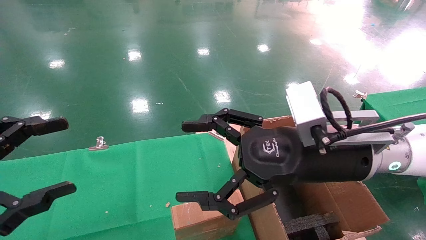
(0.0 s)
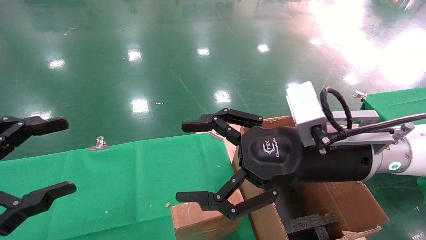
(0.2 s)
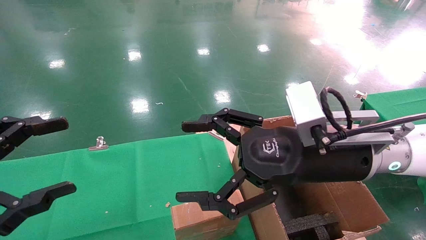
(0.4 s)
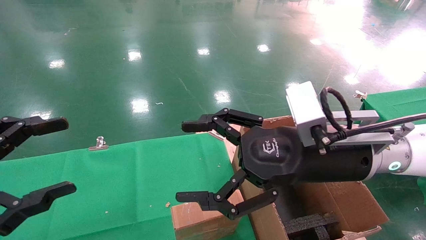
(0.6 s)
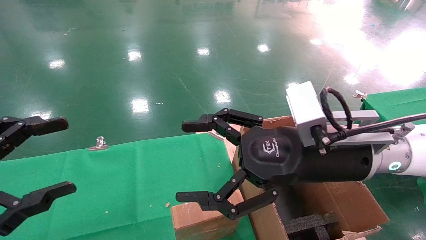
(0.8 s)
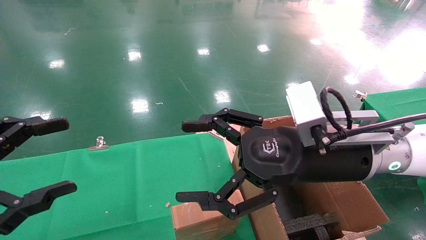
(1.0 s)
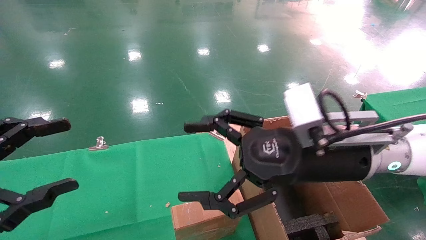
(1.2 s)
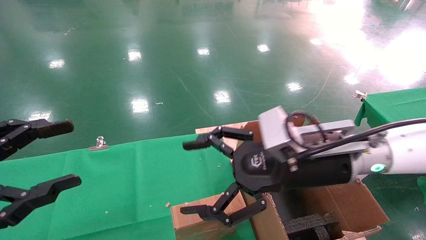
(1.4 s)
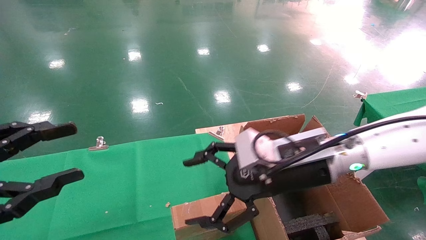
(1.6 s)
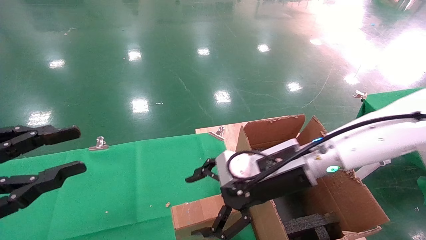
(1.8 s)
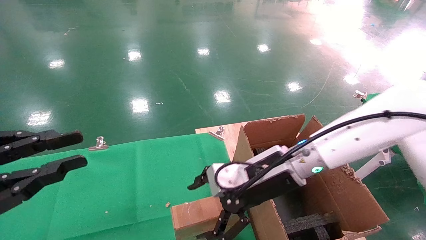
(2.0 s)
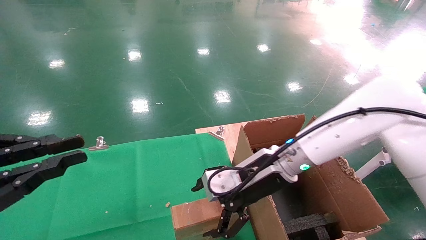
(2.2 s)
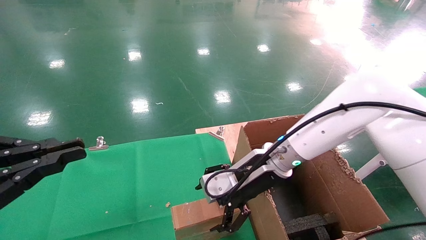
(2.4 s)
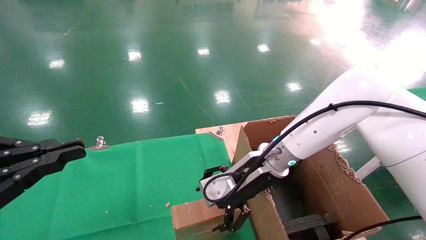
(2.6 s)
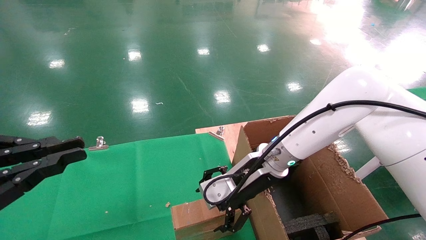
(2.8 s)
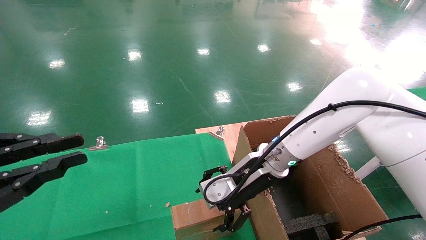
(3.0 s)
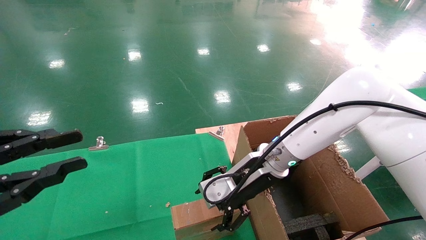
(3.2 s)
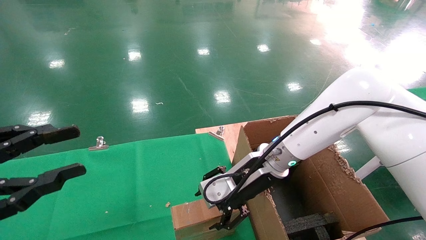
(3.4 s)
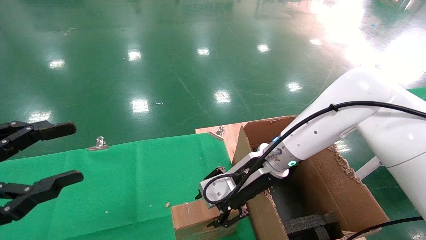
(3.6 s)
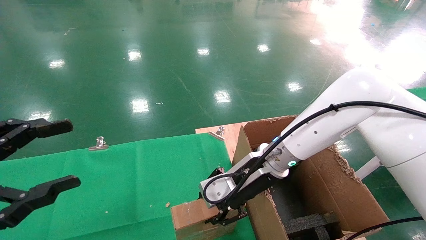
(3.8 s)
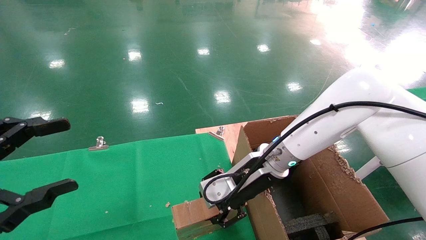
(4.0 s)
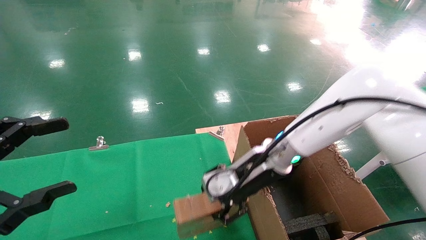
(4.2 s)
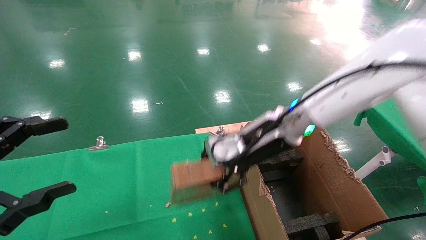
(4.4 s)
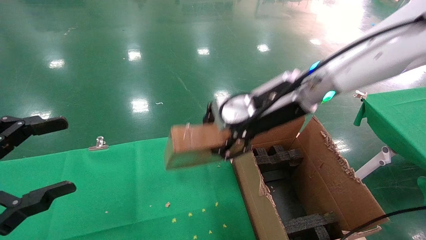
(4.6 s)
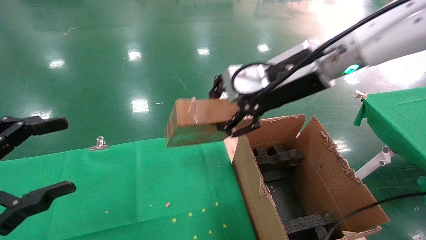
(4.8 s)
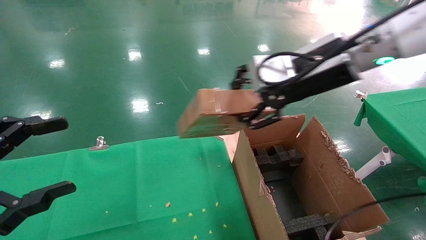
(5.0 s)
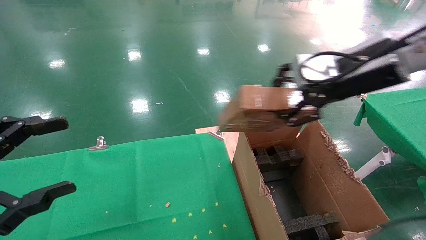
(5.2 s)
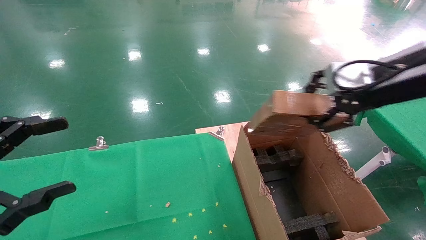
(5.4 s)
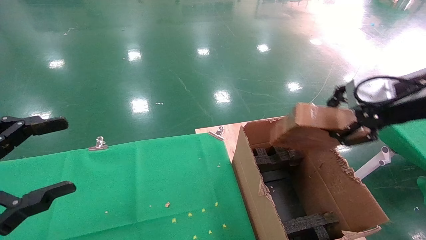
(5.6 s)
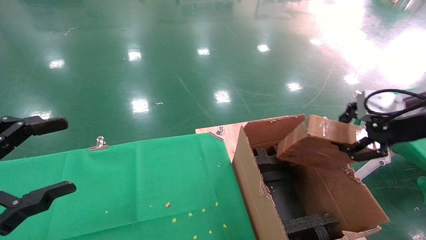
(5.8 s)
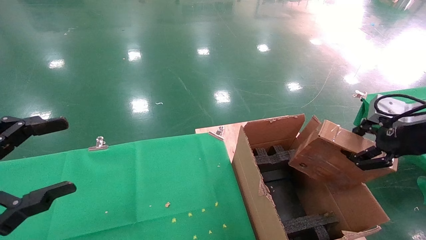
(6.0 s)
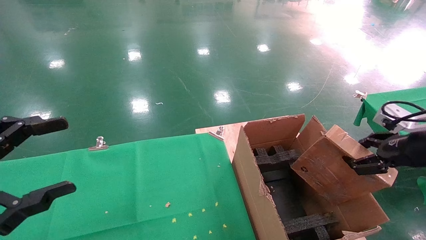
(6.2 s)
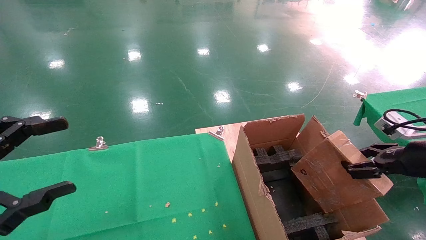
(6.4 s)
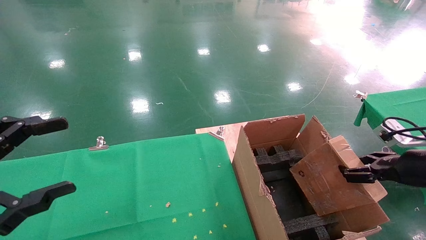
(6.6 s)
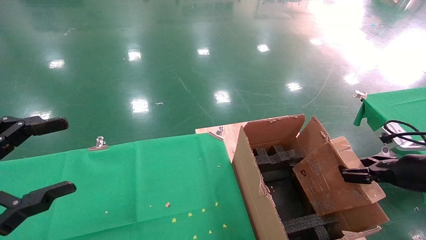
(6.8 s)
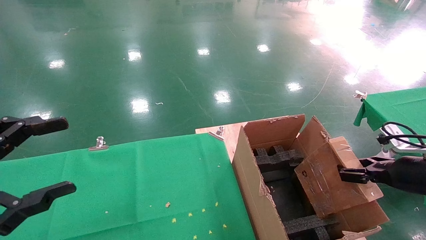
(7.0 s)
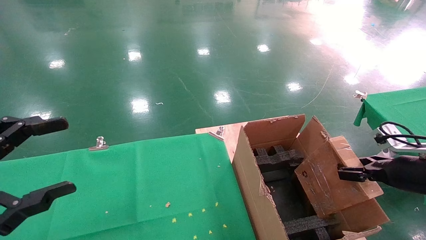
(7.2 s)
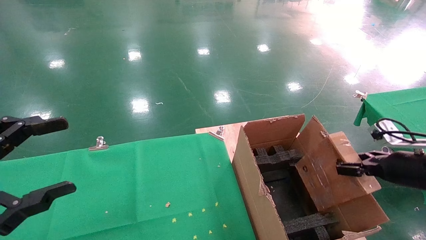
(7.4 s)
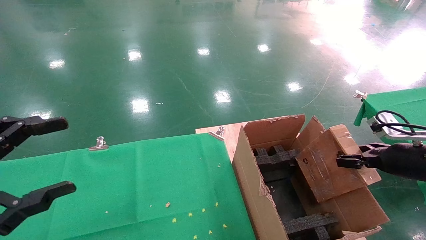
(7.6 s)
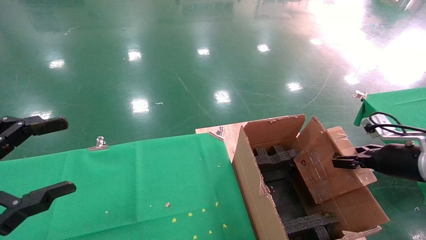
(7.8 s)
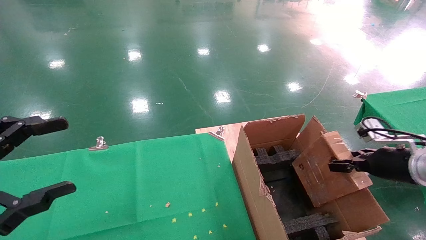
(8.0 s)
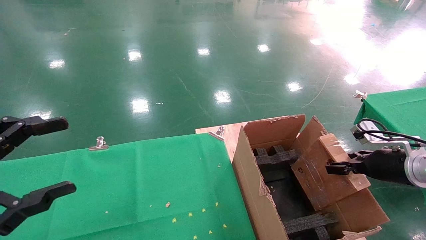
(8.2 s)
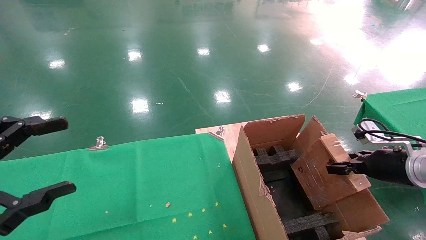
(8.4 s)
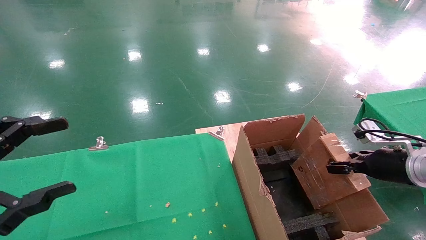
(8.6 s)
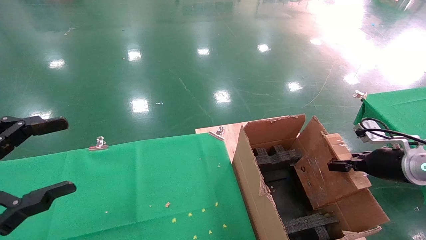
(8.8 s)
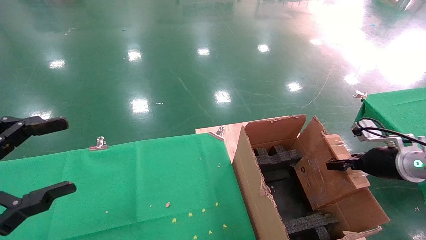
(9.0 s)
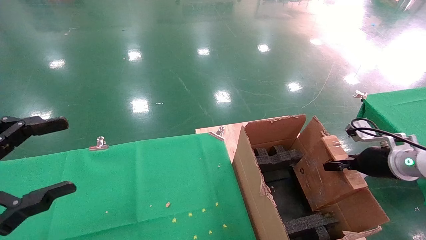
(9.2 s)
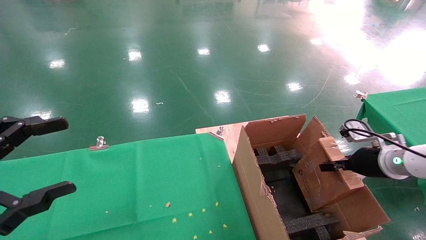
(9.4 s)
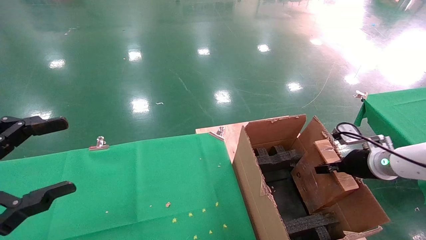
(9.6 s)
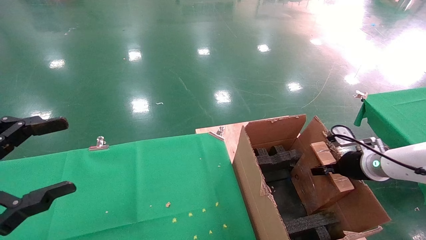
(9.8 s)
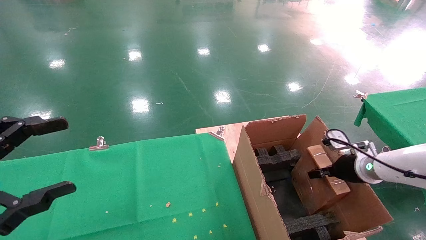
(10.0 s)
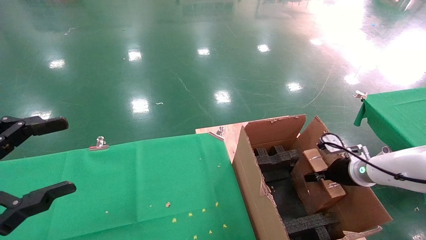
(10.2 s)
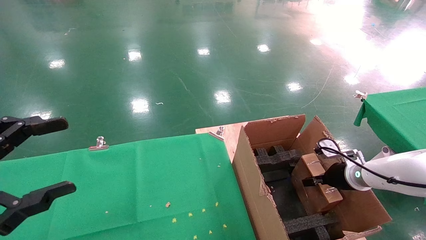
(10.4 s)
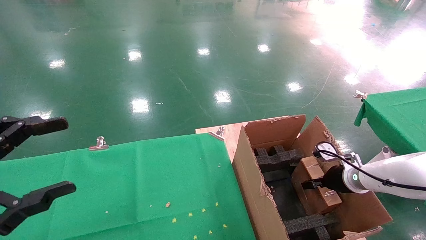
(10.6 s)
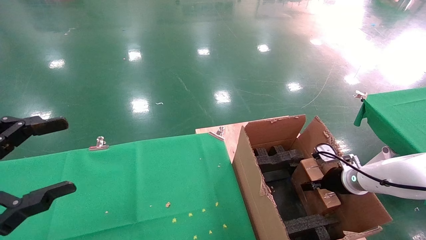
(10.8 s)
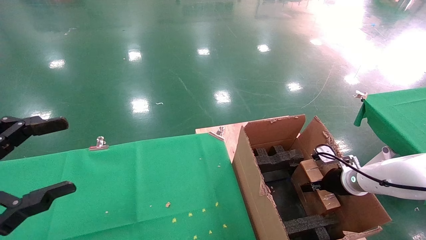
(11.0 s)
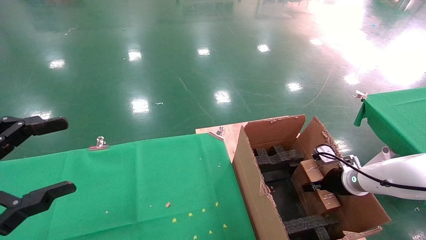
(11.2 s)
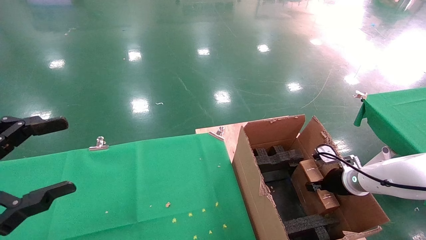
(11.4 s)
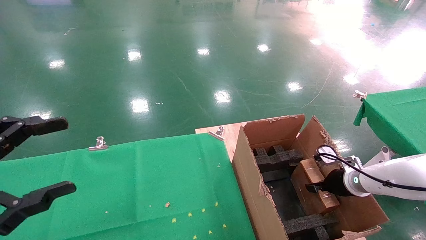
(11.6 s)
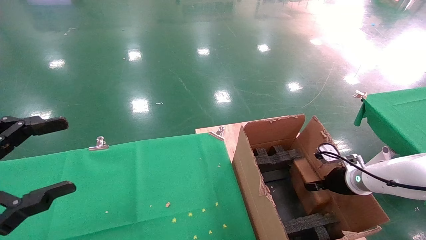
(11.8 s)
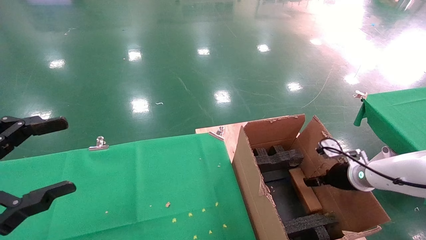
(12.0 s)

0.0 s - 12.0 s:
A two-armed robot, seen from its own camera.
Task of the whole recording: using a robotic arm to pick up a cardboard box and palace it the carton.
Step, 1.2 s - 3.8 s: Pick up the mouse and the power cord paper box.
0.0 s - 1.6 s: The right gripper changes place by some 5 cm.
1.6 s - 3.0 s: The right gripper heads forward, covering some 10 cm, while the left gripper closes its fingers.
3.0 s - 4.4 s: The right gripper goes about 10 cm upward, and closes its fingers; the left gripper opens its fingers.
4.4 s - 6.0 s: The right gripper is displaced to the right and backward by approximately 30 cm.
6.0 s - 7.6 s: The right gripper is displaced downward by some 10 cm.
7.6 s - 9.0 s: The grippers move only a little.
9.0 s - 10.4 s: The right gripper moves downward and forward, about 10 cm.
10.4 s - 12.0 s: The right gripper opens.

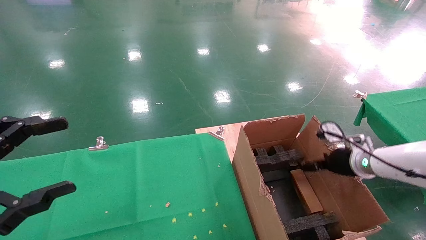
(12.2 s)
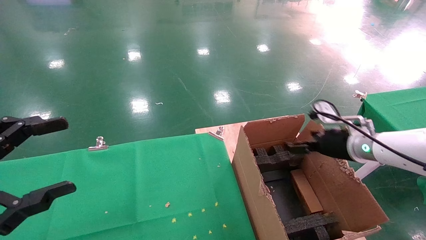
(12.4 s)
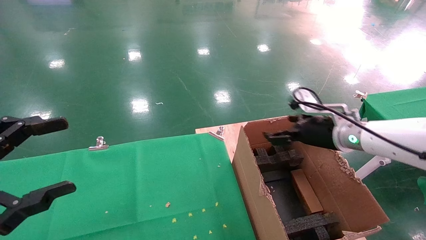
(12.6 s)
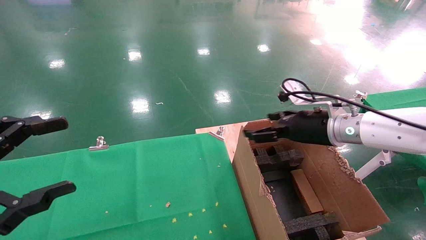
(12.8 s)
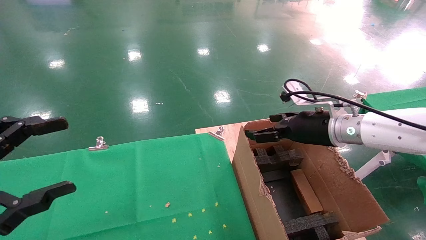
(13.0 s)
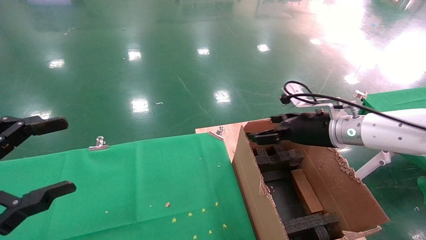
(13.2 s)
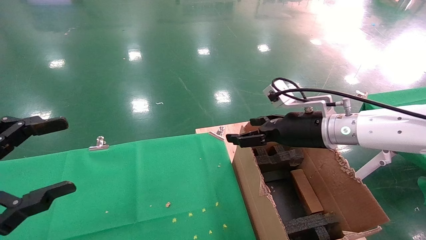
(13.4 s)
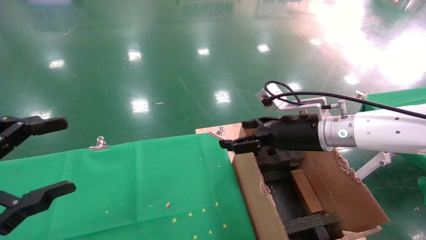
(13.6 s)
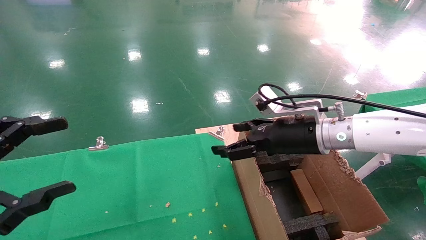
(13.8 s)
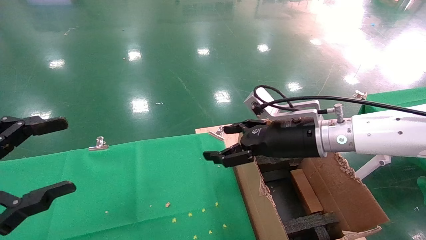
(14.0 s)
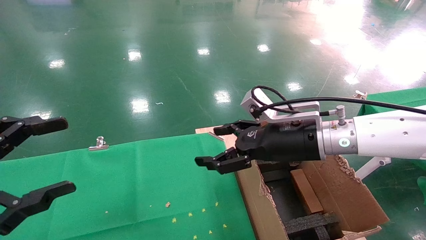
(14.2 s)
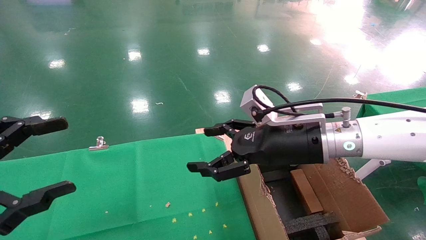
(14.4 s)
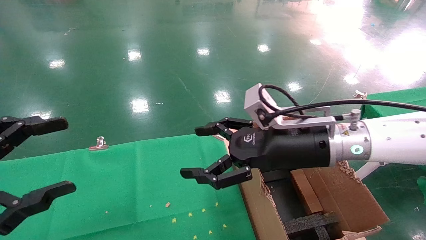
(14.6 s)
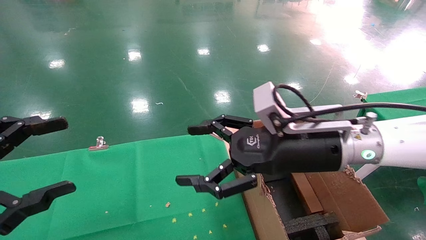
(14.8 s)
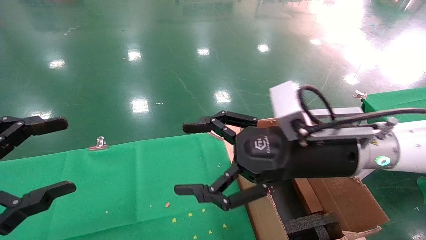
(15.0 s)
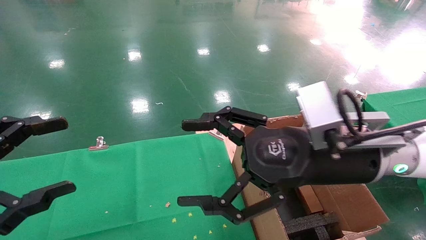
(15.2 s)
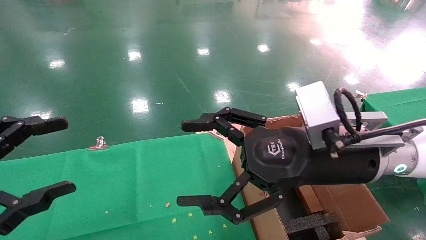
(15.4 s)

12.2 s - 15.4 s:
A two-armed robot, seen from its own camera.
Task of the whole recording: using a robotic arm to pick up a cardboard box and palace it the carton.
12.2 s - 13.8 s: The right gripper moves to the left and upward, approximately 15 cm.
13.8 s - 15.4 s: The right gripper is displaced backward by roughly 10 cm.
